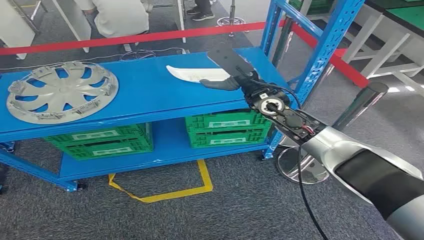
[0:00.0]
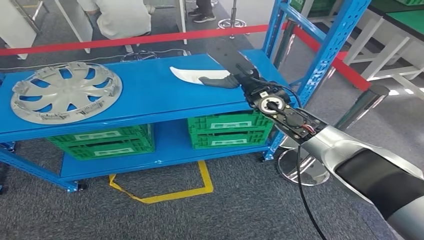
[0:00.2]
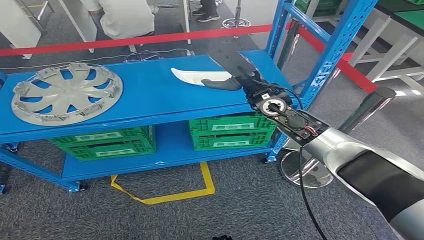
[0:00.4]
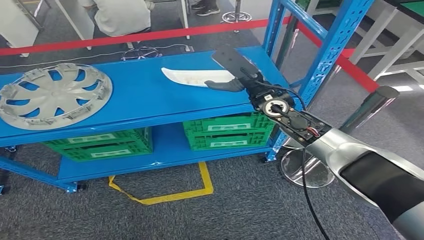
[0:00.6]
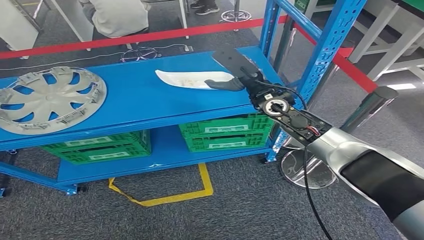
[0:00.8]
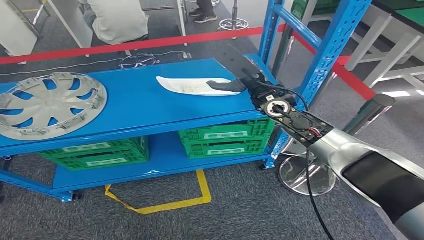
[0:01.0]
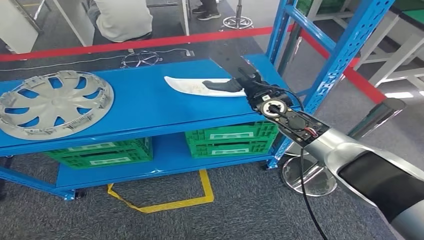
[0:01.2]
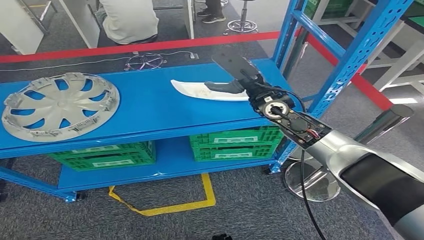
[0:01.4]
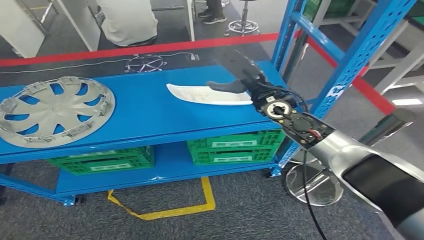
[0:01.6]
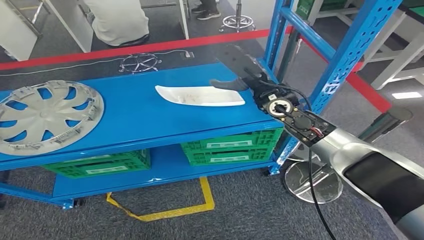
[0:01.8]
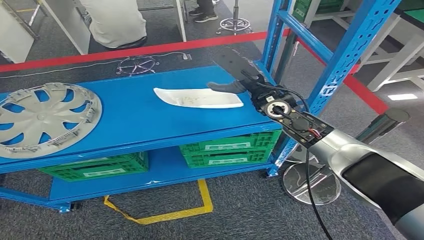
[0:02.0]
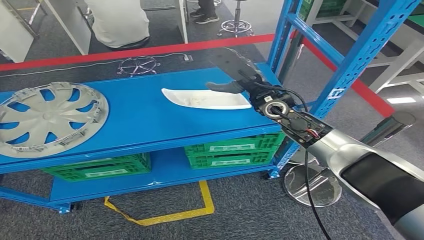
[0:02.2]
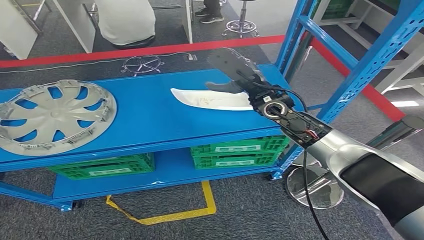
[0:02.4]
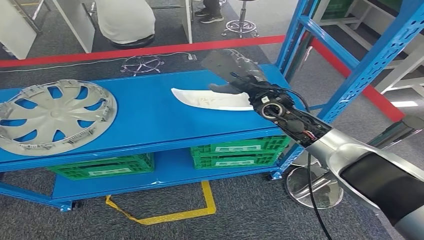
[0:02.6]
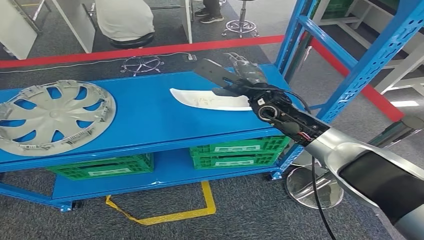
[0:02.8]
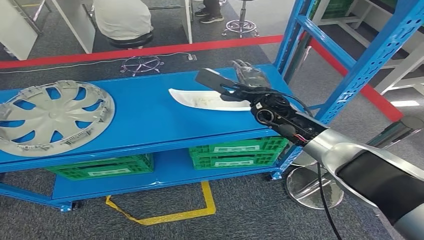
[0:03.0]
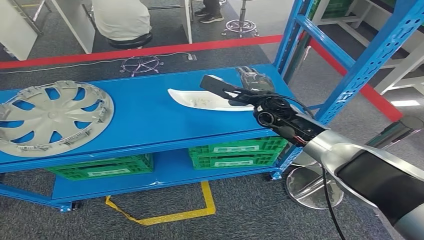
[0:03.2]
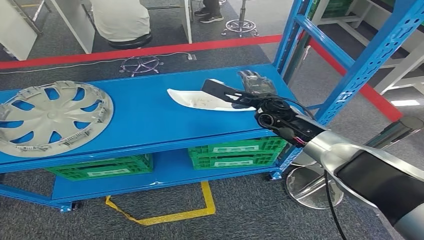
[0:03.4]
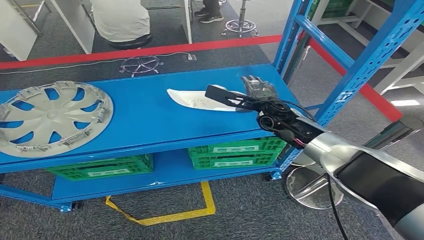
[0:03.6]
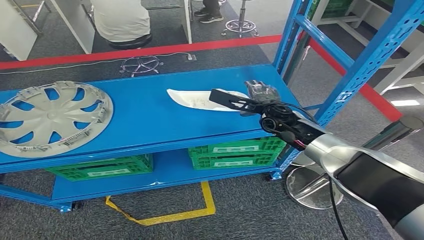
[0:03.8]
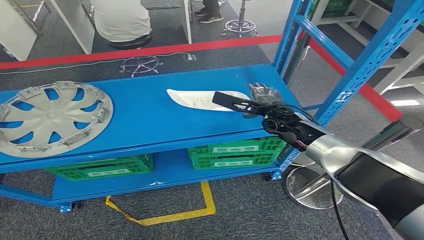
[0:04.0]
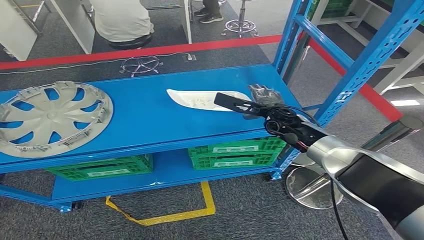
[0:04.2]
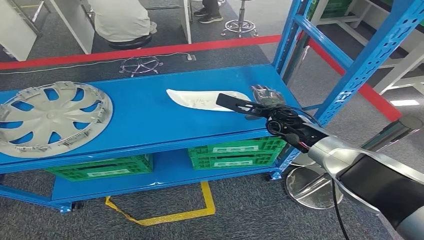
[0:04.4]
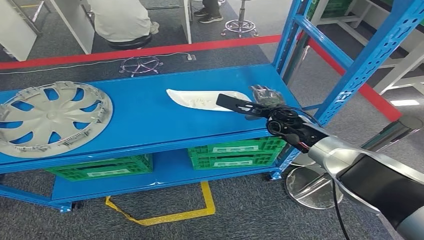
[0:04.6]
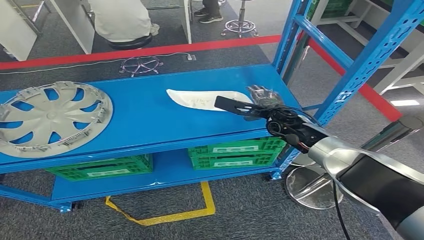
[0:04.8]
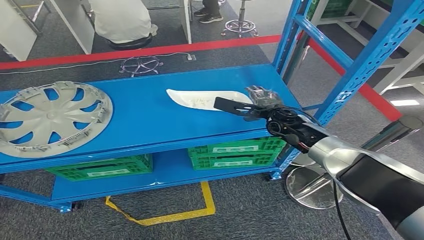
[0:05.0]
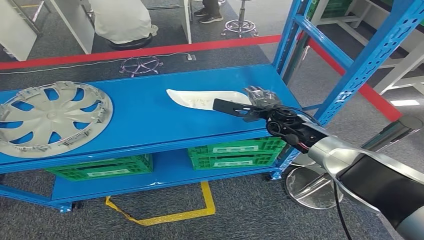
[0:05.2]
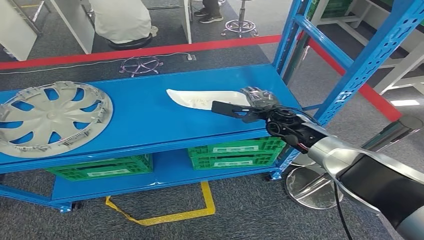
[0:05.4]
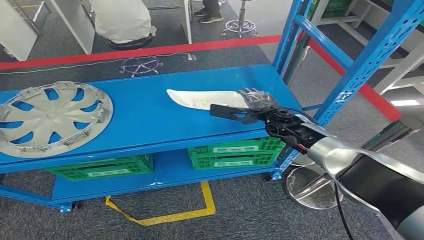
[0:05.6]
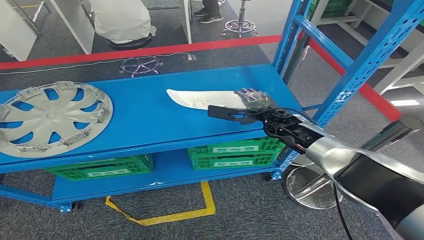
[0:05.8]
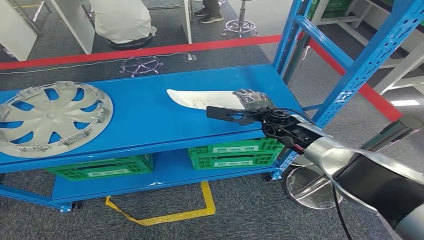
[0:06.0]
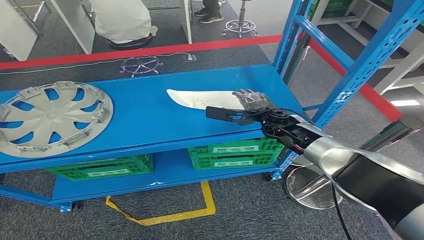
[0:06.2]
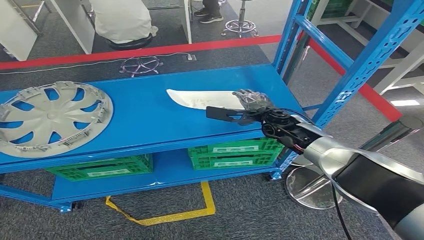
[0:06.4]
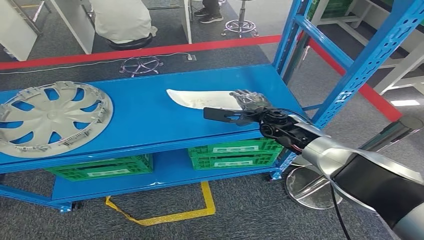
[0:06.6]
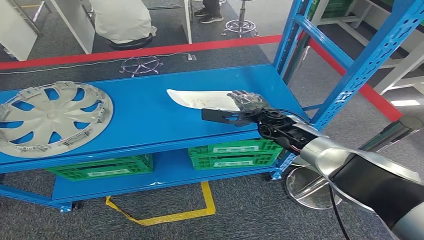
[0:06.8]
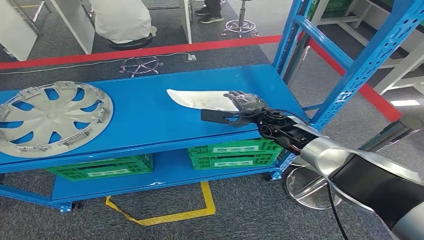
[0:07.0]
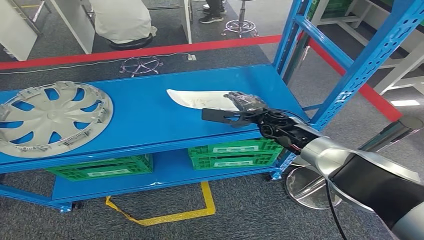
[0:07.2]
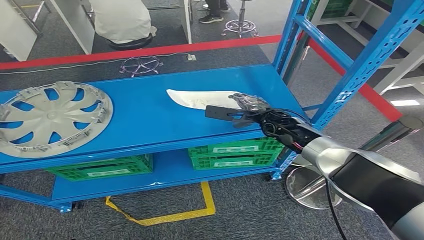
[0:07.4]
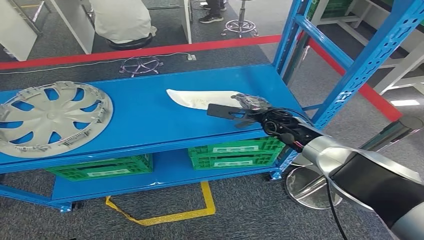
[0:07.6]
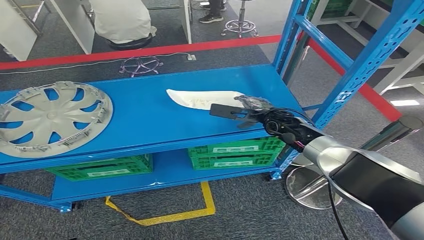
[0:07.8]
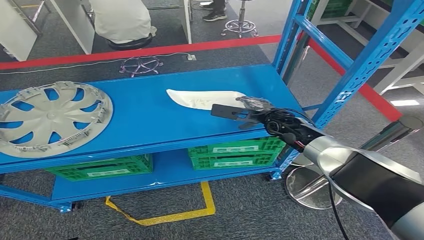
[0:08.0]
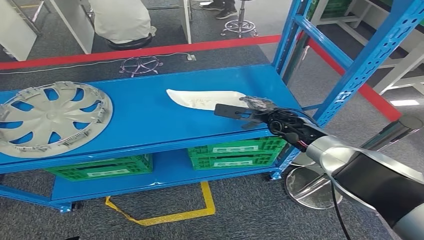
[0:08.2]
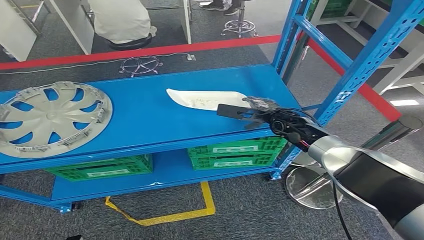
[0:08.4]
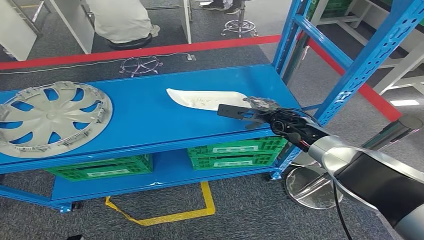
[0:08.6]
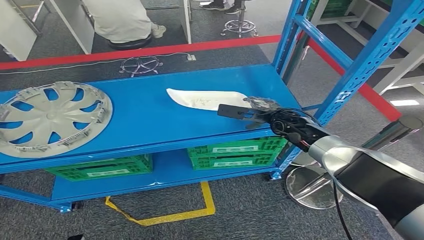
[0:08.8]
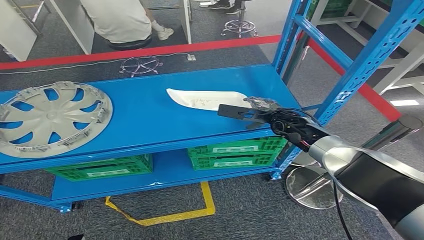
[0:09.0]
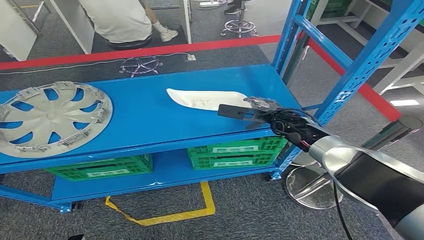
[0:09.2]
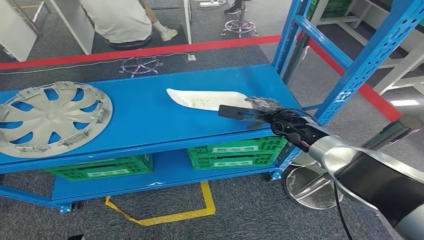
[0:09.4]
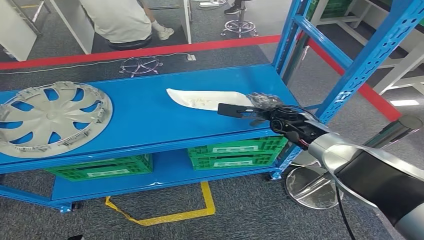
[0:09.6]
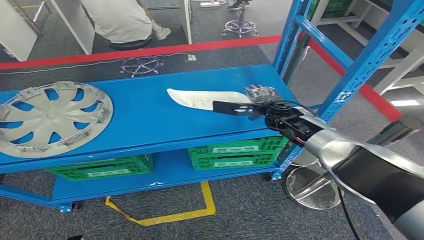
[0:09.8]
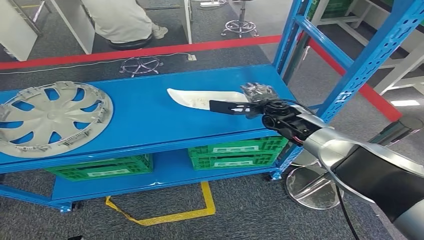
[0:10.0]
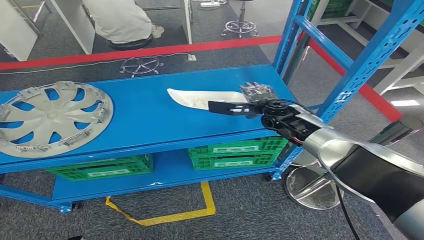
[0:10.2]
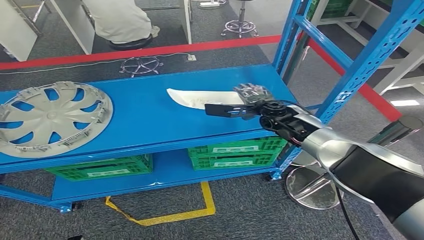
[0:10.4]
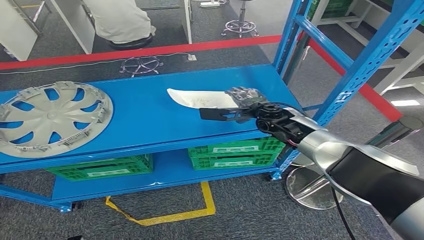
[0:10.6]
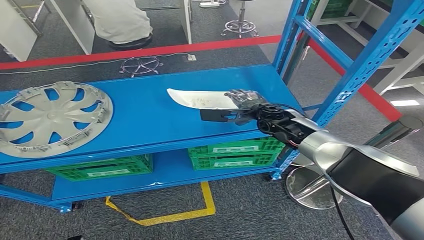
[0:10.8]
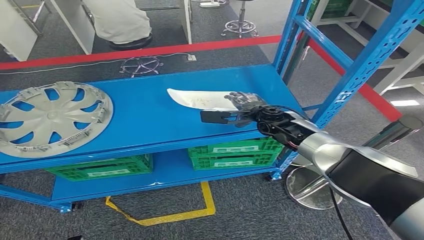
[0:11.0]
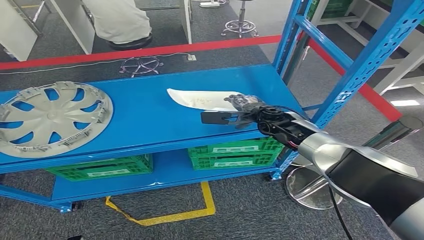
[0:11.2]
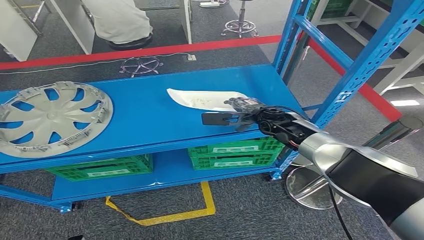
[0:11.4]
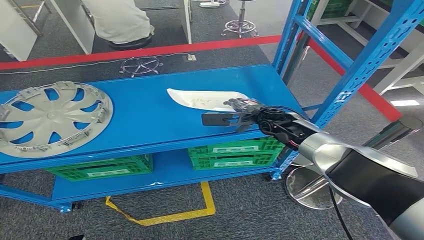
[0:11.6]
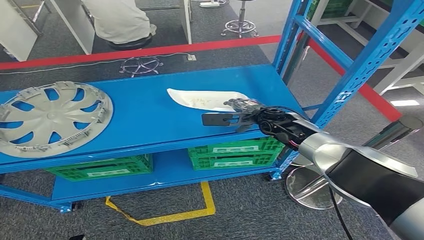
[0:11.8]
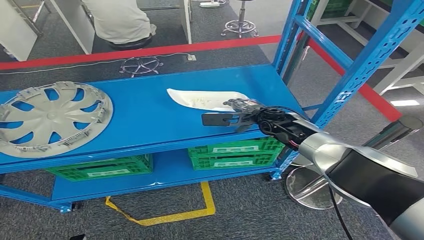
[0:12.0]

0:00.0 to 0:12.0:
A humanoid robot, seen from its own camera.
0:03.0 to 0:04.4: The right hand is displaced downward by some 5 cm.
0:04.4 to 0:09.0: There are only small adjustments of the hands.
0:09.0 to 0:10.4: The right hand ends up some 5 cm from where it was.
0:10.4 to 0:12.0: The hands stay close to where they were, moving slightly.

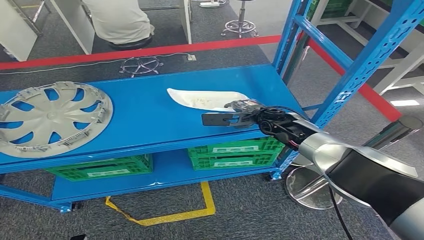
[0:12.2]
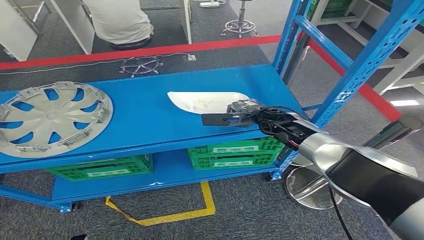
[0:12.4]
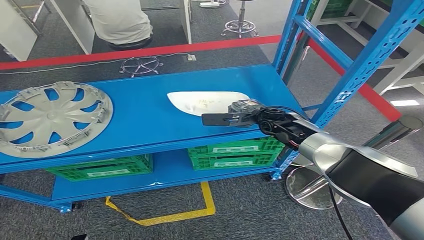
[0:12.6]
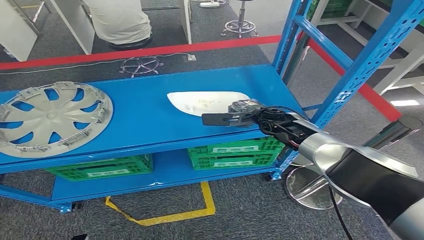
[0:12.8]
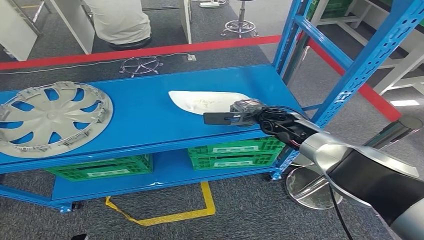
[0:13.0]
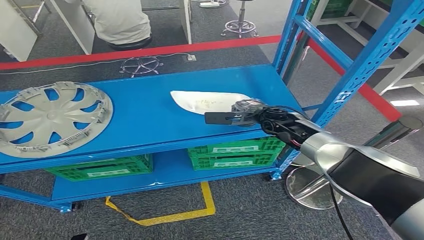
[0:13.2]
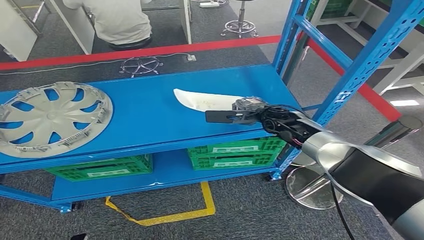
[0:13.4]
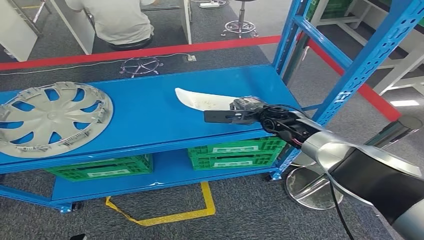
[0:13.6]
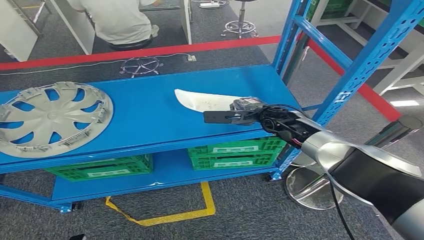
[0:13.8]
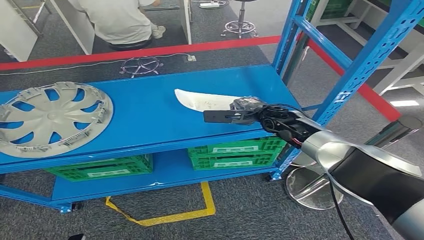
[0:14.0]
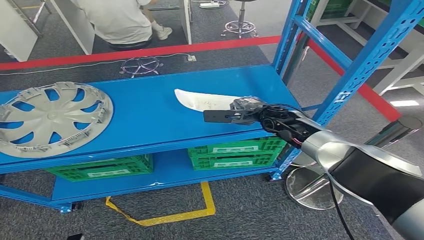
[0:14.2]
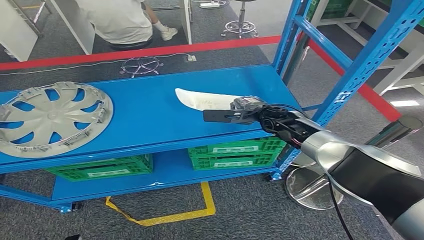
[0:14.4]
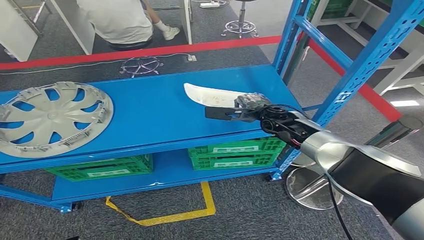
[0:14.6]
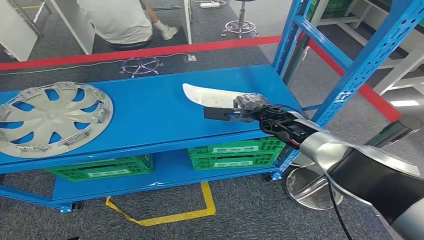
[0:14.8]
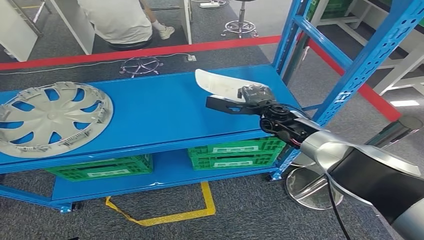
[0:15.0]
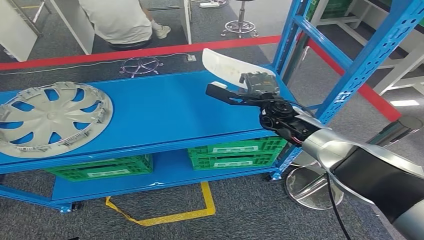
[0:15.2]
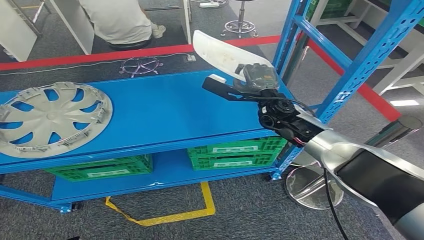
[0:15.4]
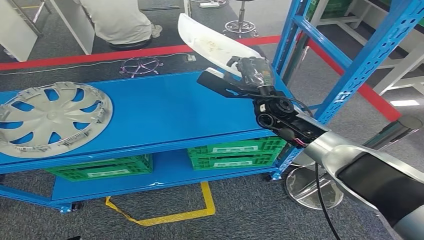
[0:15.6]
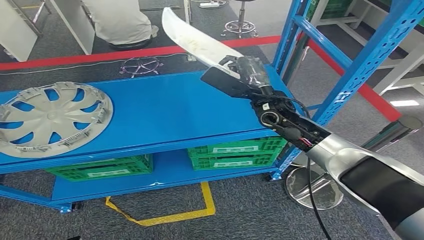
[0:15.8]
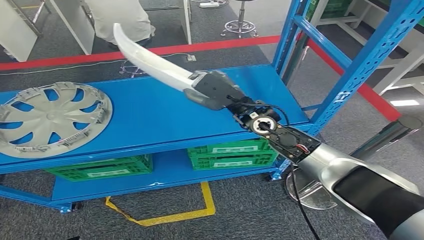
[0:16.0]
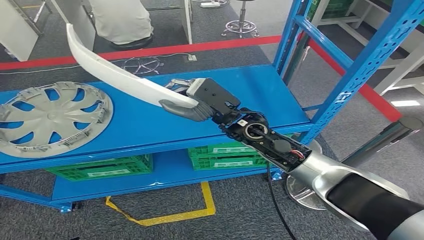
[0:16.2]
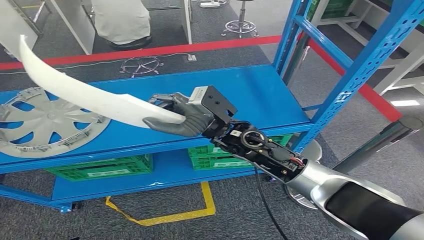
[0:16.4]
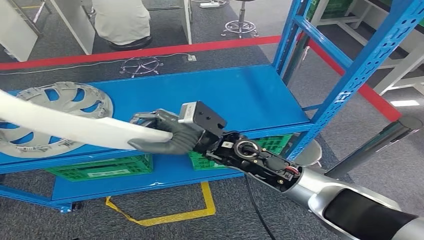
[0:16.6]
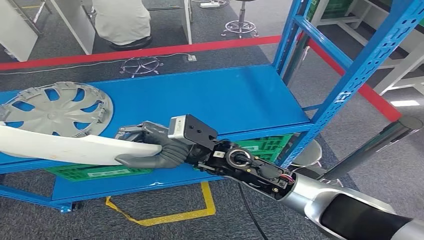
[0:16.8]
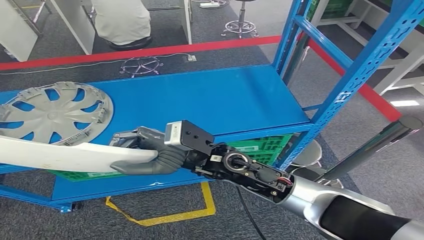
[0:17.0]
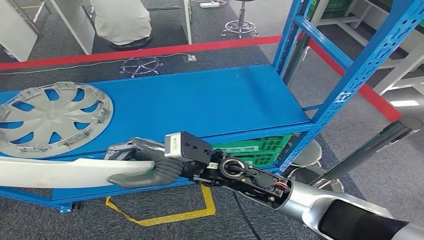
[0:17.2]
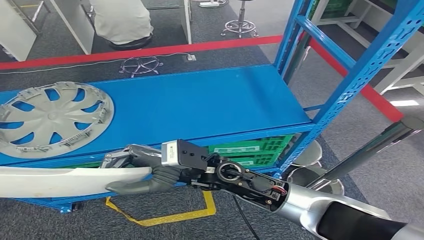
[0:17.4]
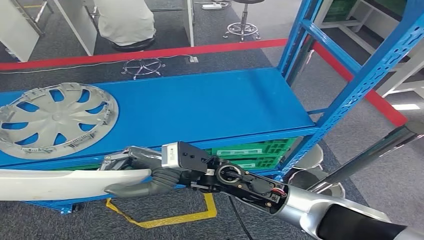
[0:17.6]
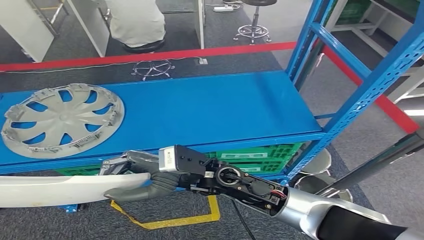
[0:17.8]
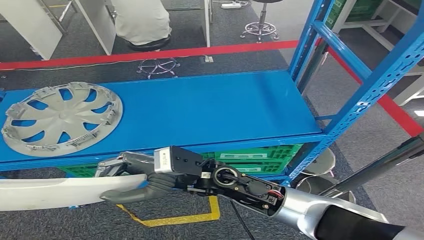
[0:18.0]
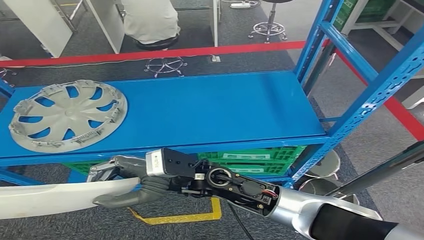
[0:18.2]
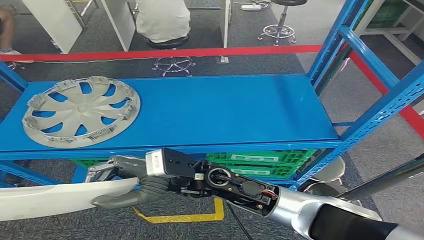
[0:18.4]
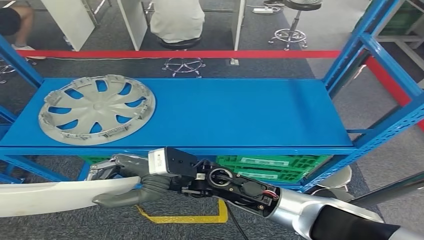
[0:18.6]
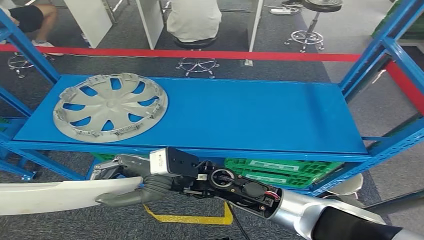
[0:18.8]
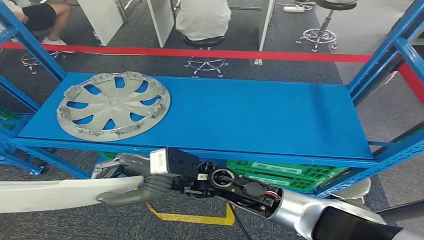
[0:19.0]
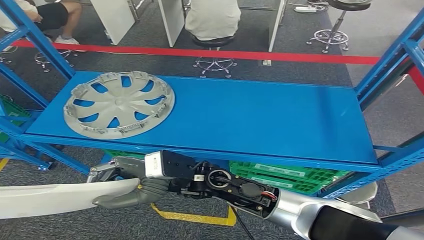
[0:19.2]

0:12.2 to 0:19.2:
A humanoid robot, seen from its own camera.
Step, 0:12.2 to 0:16.0: Take small components from the rack.
0:12.2 to 0:13.6: Neither hand changes place.
0:13.6 to 0:15.0: The hands stay close to where they were, moving slightly.
